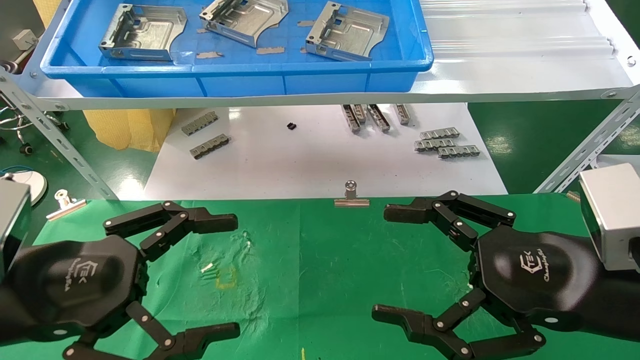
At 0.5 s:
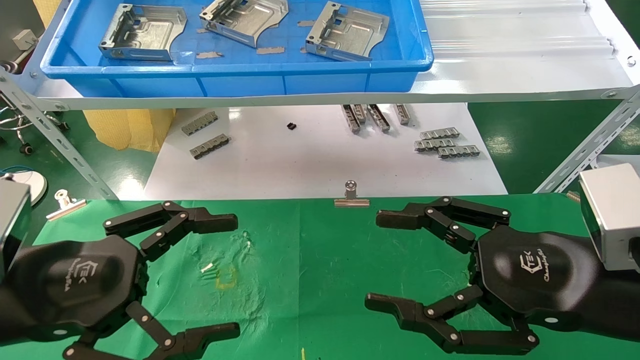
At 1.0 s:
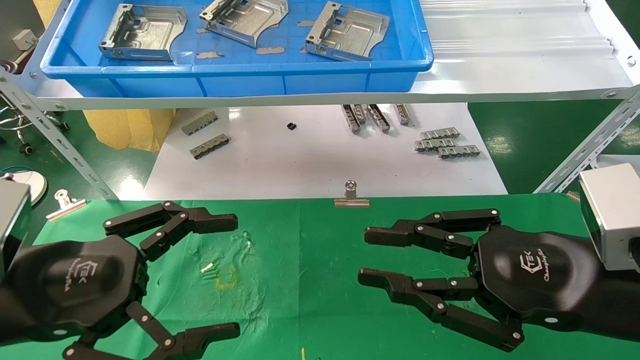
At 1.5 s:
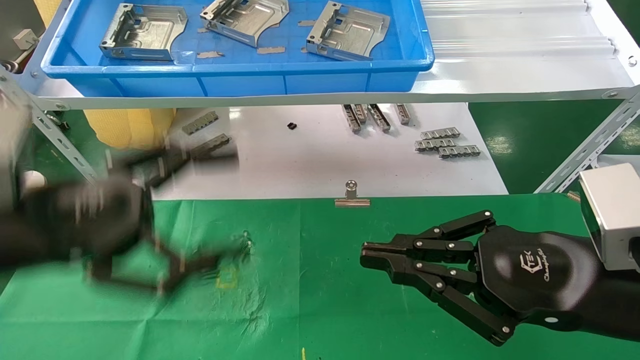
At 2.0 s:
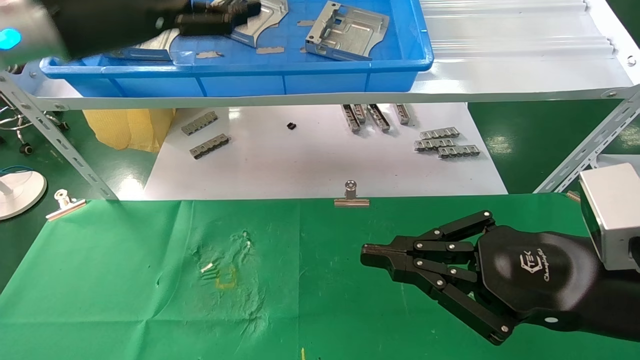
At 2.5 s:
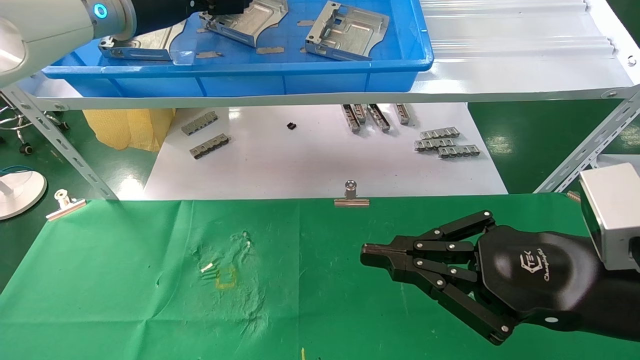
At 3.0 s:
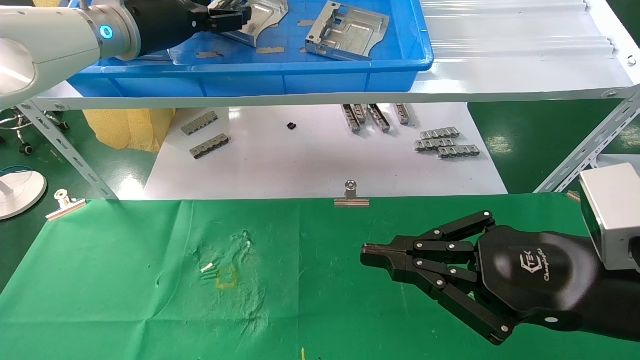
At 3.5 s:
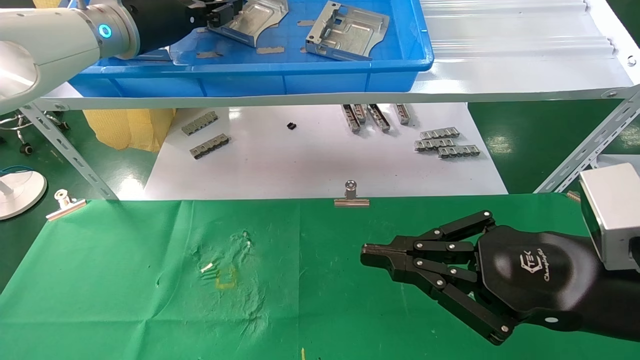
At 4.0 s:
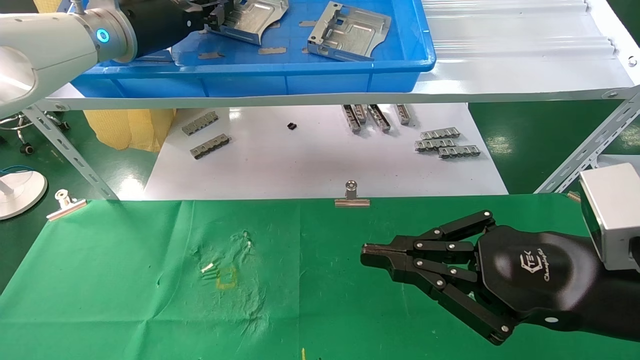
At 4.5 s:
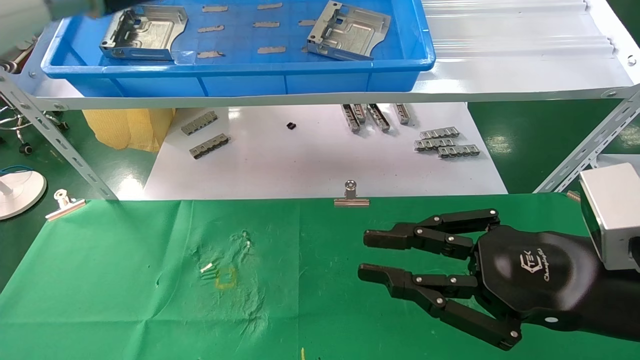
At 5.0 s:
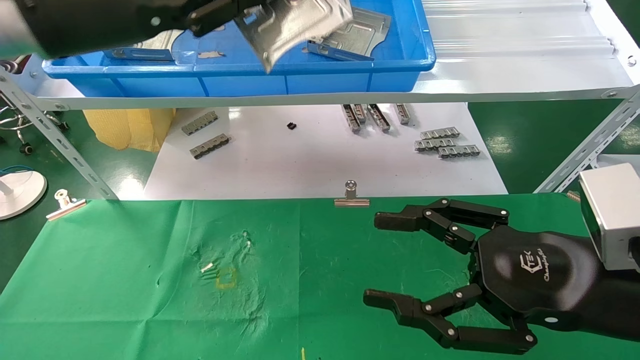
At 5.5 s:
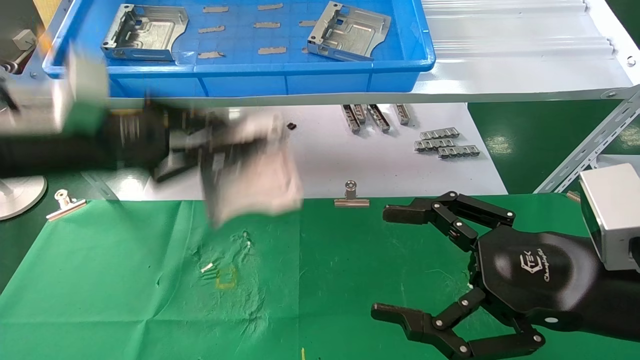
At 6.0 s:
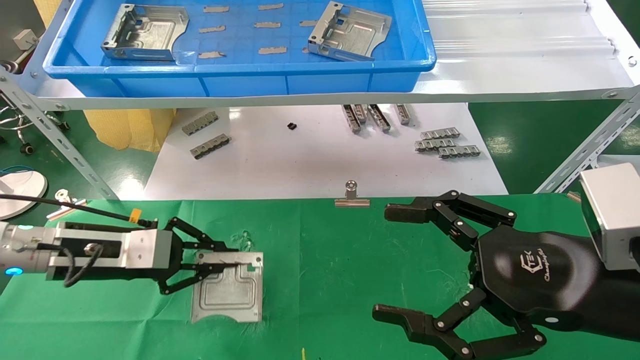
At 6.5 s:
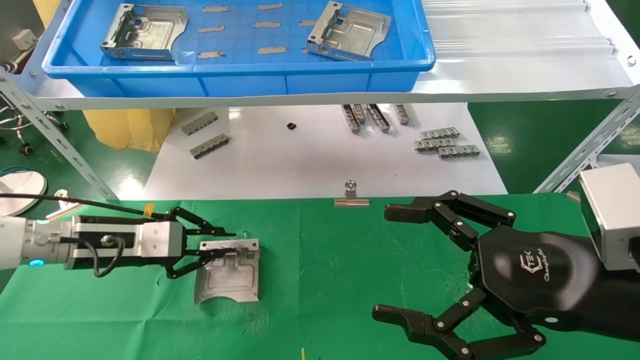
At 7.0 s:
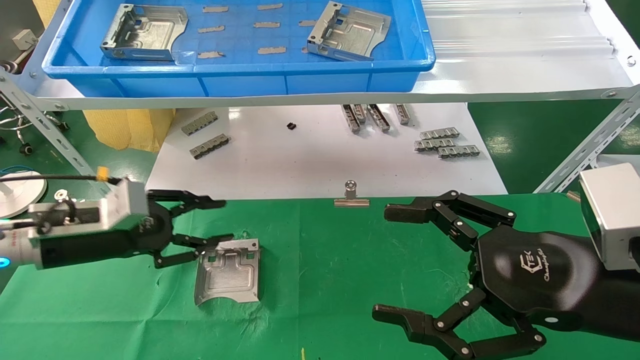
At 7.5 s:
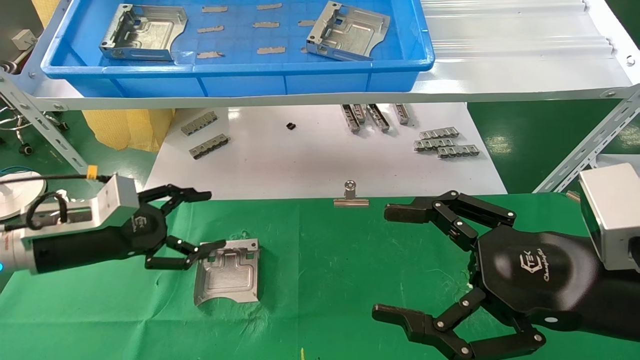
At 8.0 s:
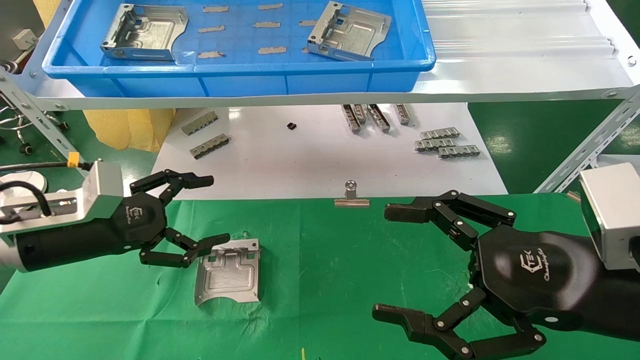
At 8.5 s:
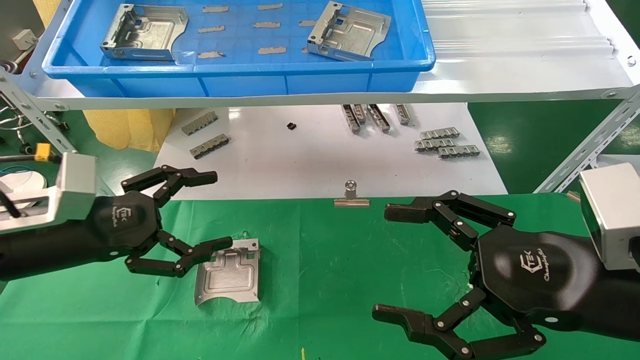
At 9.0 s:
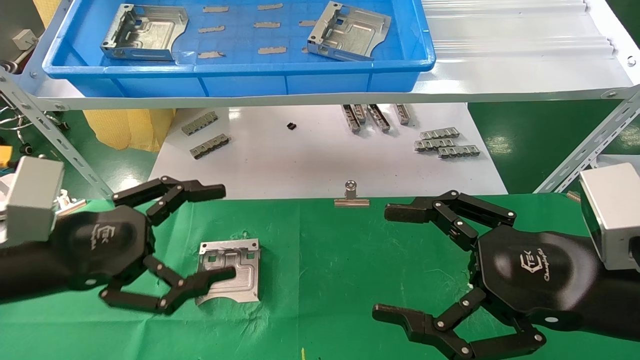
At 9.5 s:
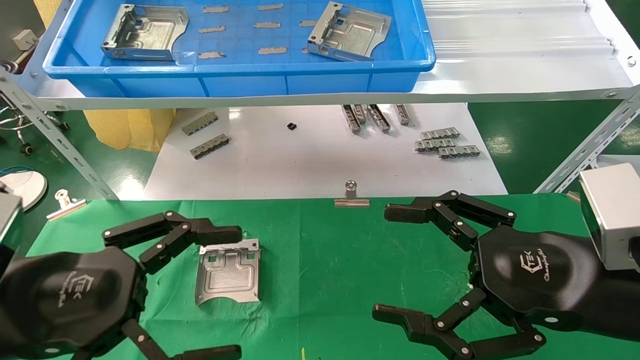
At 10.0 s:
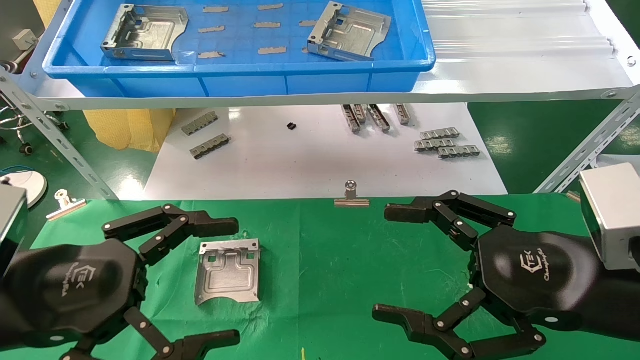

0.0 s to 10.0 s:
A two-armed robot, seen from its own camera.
Task of the whole recording: use the mechanical arm to pick up the parts and place them on the table.
Step, 1.5 to 3.5 s: Pick up the hard drive bracket from the feeding area.
Step, 4.0 to 7.0 s: Place the hard drive bracket into the box.
0.0 to 2.0 s: The right gripper closes; the left gripper is displaced upward and forward by about 25 cm.
2.0 to 4.0 s: The left gripper goes approximately 5 cm forward, and closes its fingers.
4.0 to 6.0 s: The left gripper is displaced downward by about 25 cm, while the right gripper opens up.
6.0 to 8.0 s: The left gripper opens up.
8.0 to 10.0 s: The left gripper moves backward, approximately 15 cm.
